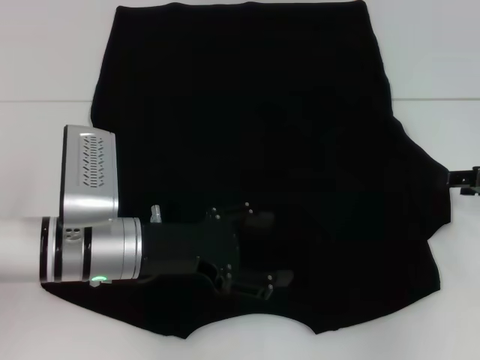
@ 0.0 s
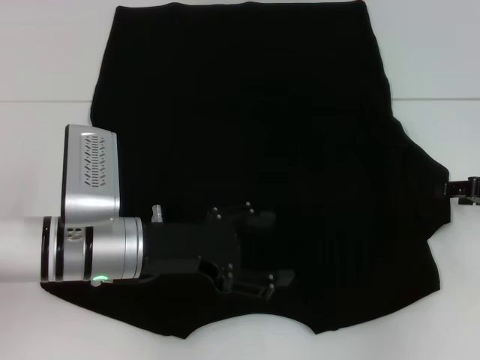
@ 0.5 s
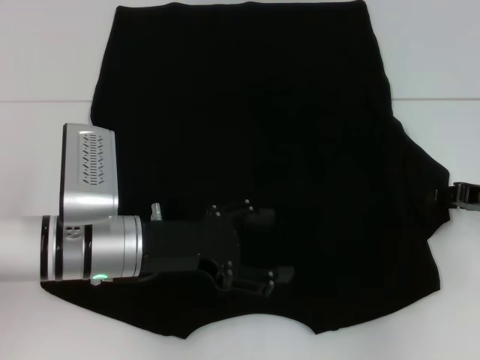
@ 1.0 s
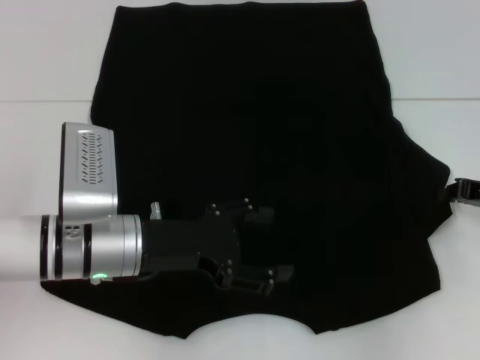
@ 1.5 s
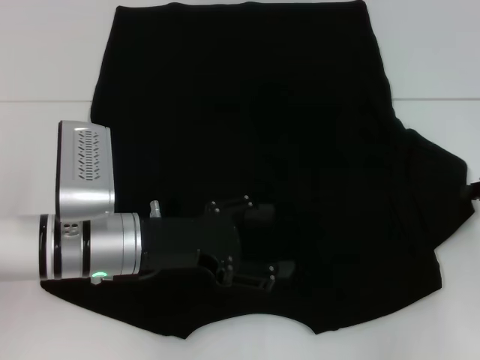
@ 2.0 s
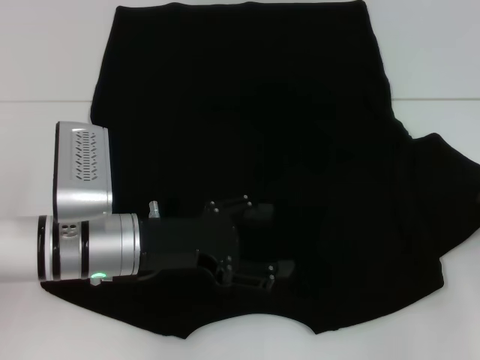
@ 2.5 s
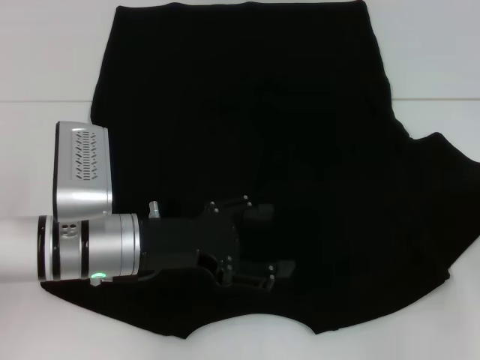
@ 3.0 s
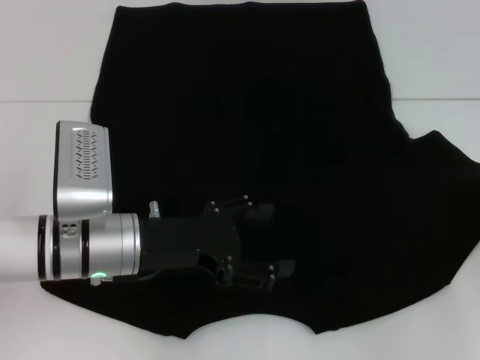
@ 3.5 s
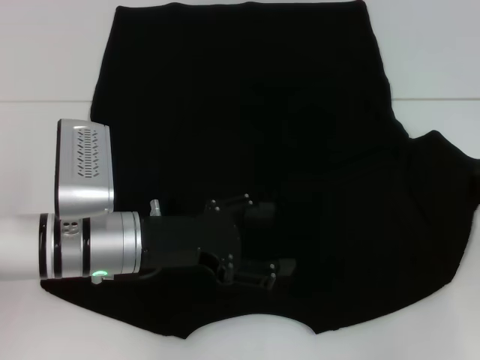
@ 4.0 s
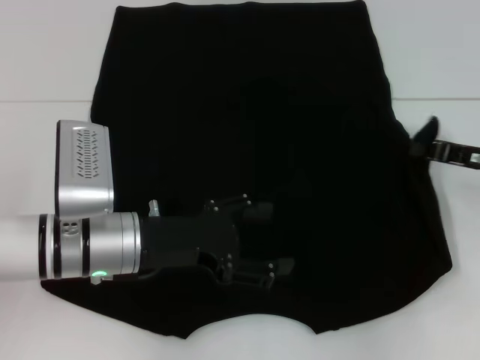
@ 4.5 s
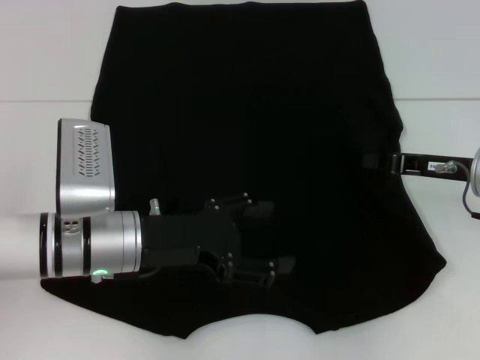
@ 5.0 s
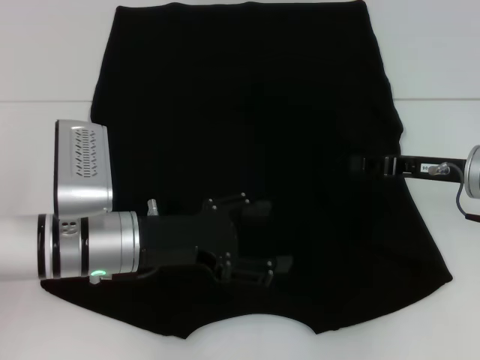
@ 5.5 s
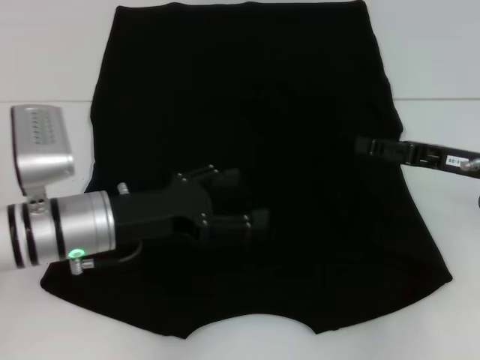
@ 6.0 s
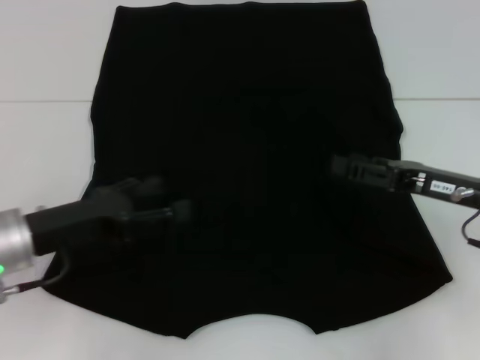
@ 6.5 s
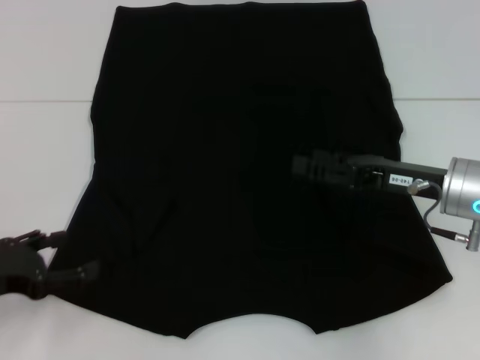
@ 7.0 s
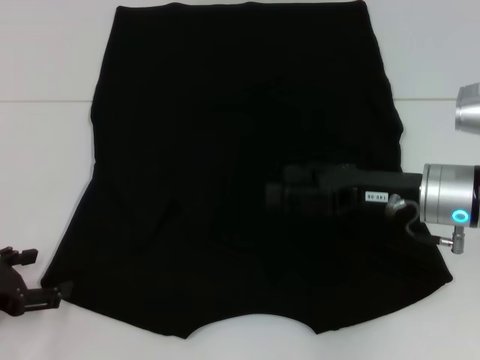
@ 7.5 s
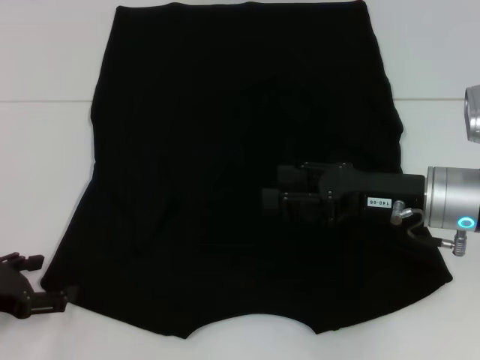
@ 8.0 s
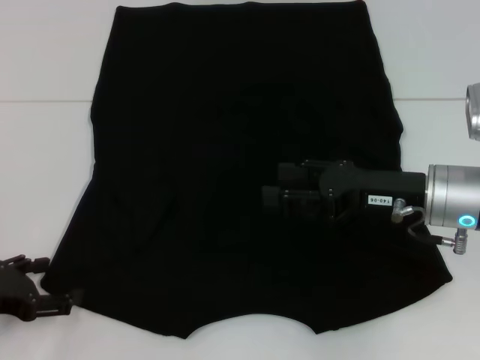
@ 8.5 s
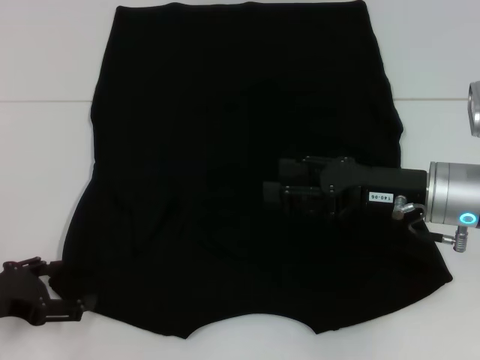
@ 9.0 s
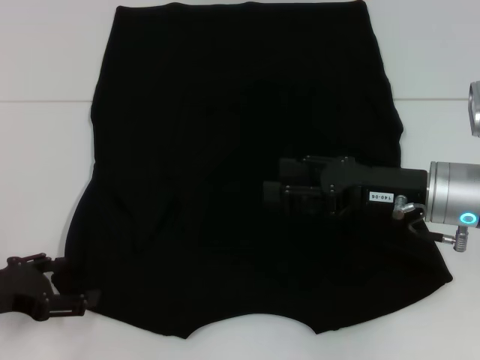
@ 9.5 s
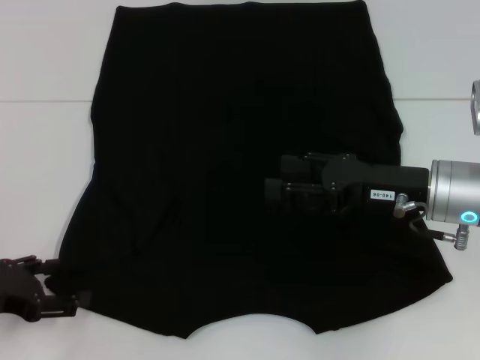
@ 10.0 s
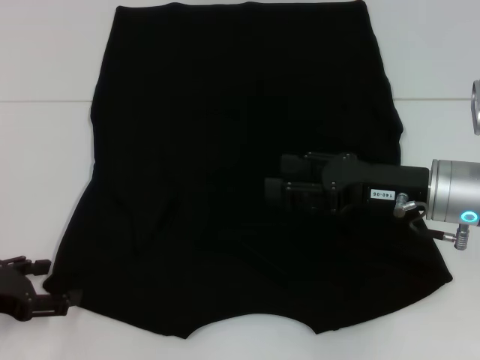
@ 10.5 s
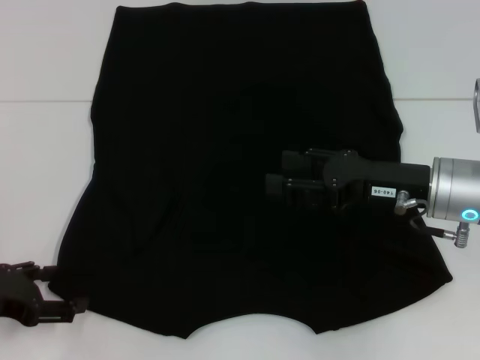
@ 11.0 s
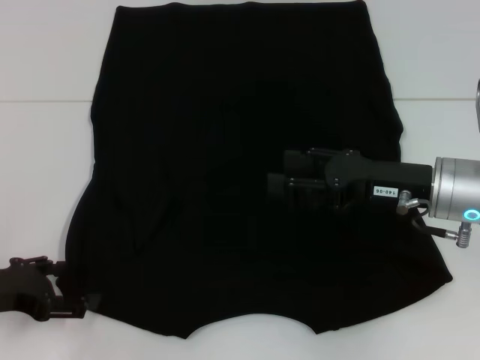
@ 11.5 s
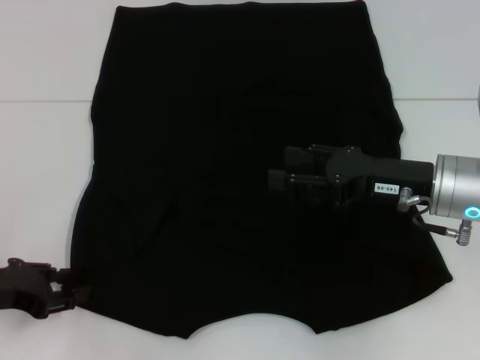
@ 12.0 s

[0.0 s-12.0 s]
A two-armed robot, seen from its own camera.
Step, 0.0 to 5.5 s: Fold the bottom right sleeve with your right hand.
0.0 to 2.0 s: The right gripper closes.
2.0 to 4.0 s: There are only small adjustments of the grippers.
4.0 to 6.0 s: The right gripper travels to the left by some 10 cm, and opens its fingers.
6.0 to 8.0 s: The left gripper goes some 15 cm to the left and backward. The right gripper shifts about 10 cm to the left.
8.0 to 12.0 s: The grippers move only a little.

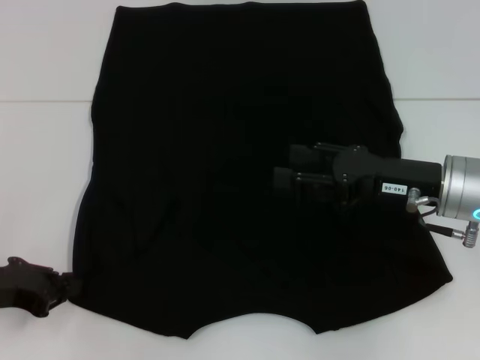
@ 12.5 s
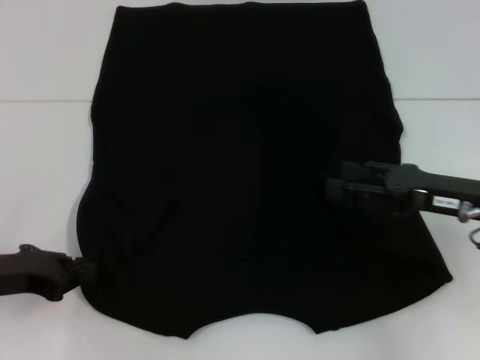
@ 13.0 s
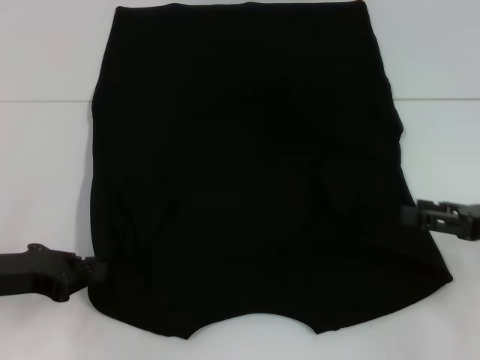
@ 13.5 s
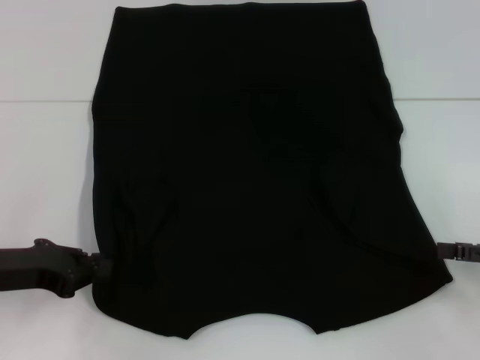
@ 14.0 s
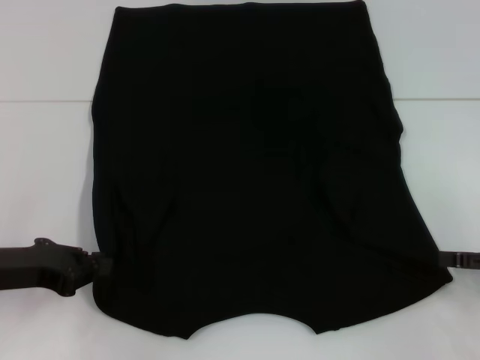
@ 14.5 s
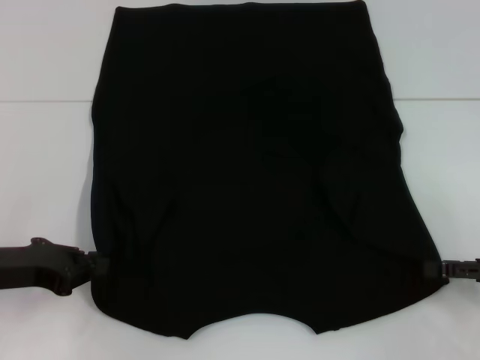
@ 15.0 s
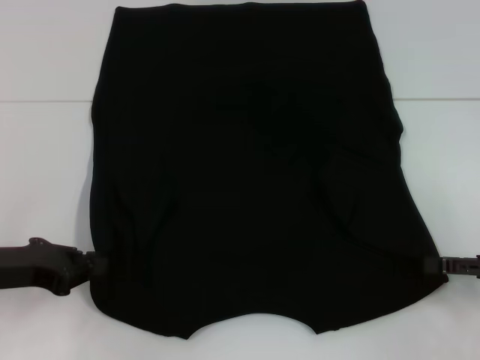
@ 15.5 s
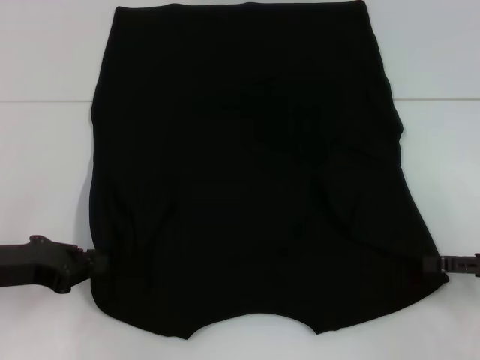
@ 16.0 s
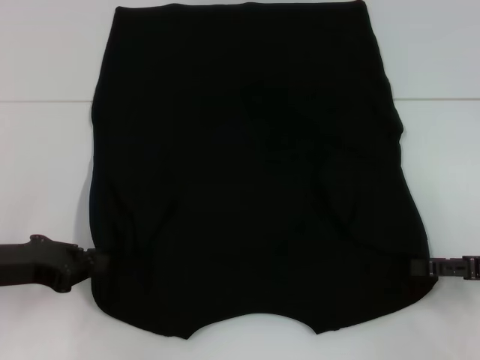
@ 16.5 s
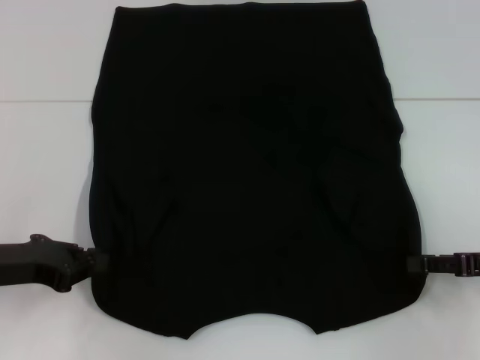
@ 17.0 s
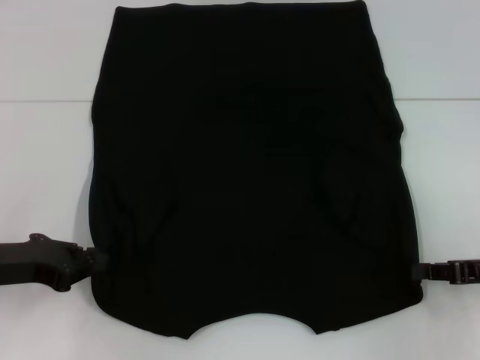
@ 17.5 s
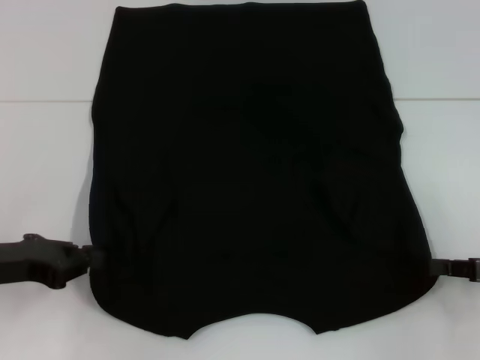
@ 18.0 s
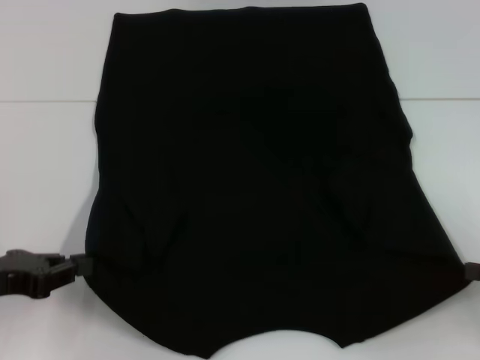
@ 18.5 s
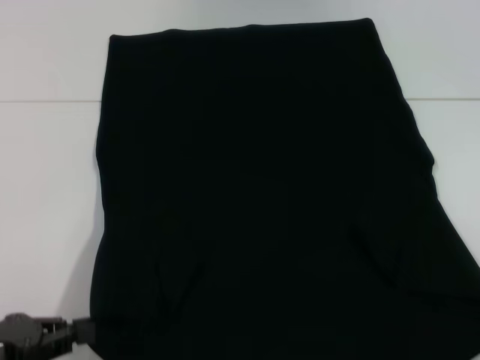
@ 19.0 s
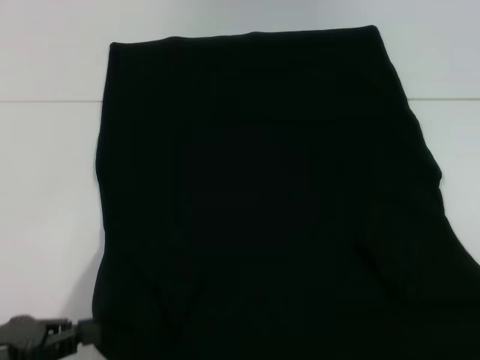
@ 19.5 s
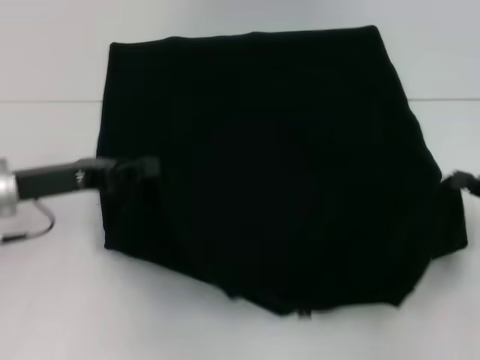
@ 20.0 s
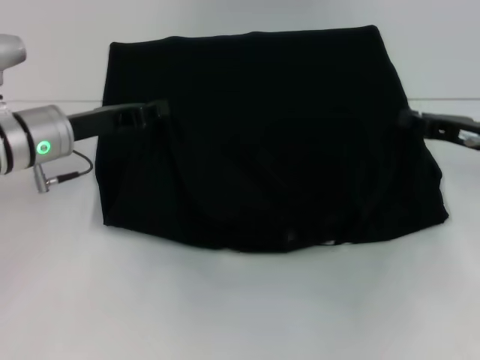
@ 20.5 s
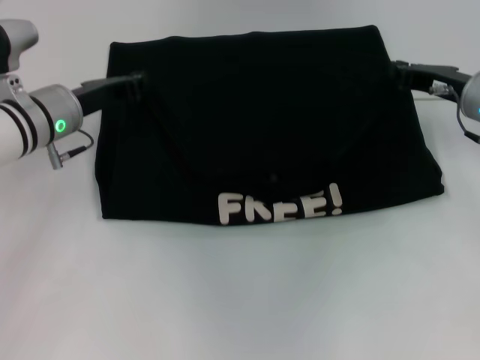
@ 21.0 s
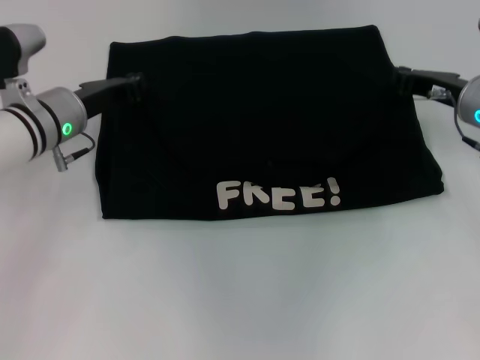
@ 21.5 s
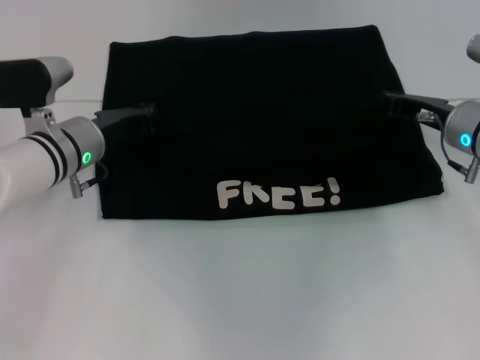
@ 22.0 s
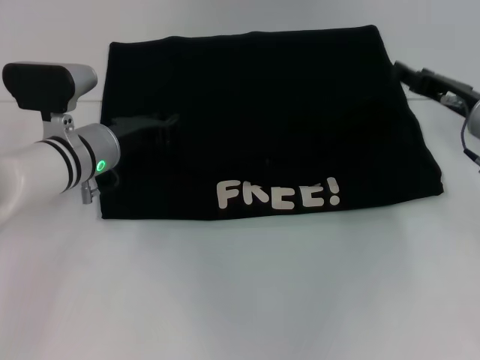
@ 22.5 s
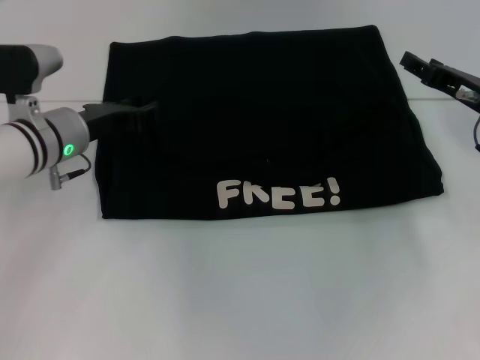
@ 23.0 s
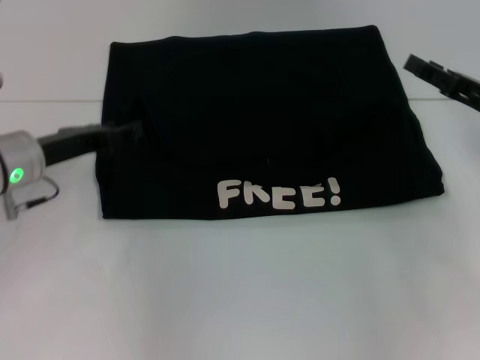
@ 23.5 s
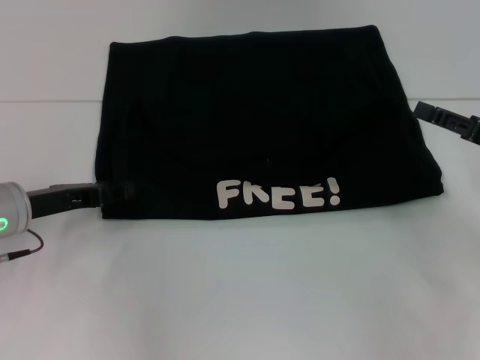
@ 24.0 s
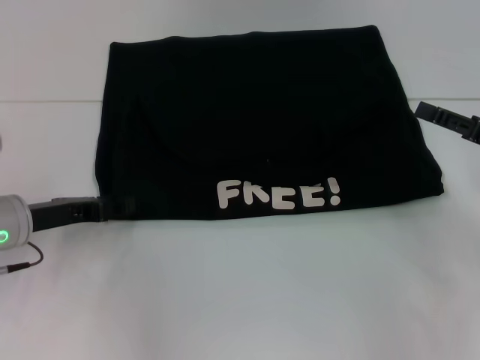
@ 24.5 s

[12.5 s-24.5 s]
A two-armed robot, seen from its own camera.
Step, 13.0 to 17.5 s: Grab the bottom right corner with your right hand.
Step, 18.0 to 22.0 s: Fold the clothes with your left hand.
Step, 18.0 to 22.0 s: Fold the clothes with your right hand.
12.5 to 14.5 s: The right gripper shifts roughly 15 cm to the right.
14.5 to 16.5 s: The grippers move only a little.
16.5 to 18.5 s: The right gripper ends up about 5 cm from where it was, and closes.
18.5 to 20.5 s: The right gripper goes some 15 cm forward and to the left; the left gripper is displaced forward and to the right by approximately 15 cm.
20.5 to 22.5 s: The left gripper shifts by approximately 5 cm.
22.5 to 24.5 s: The left gripper heads to the left and backward, covering some 10 cm, and opens. The right gripper moves backward and to the right, approximately 10 cm.

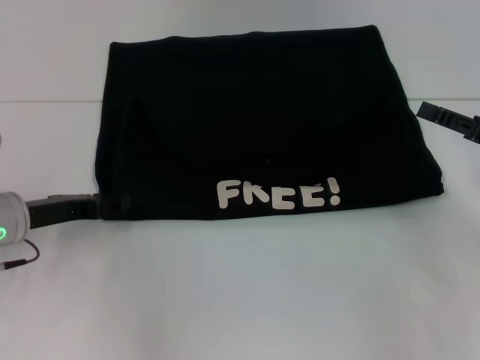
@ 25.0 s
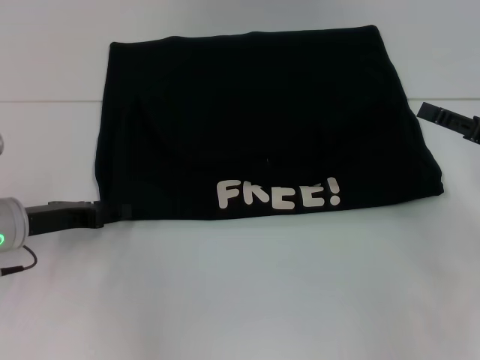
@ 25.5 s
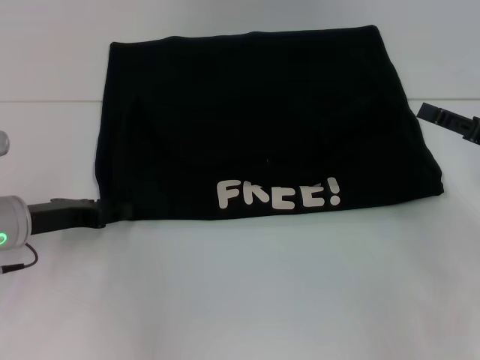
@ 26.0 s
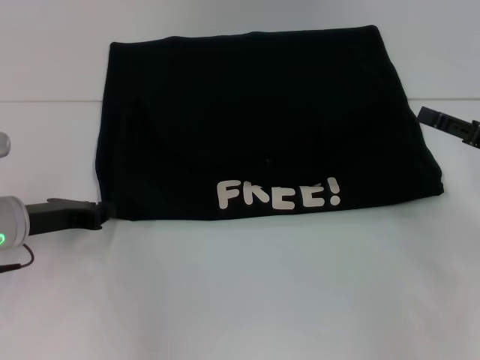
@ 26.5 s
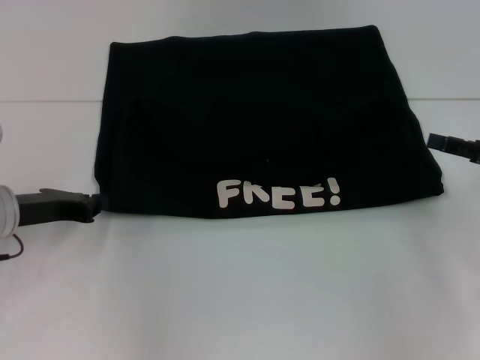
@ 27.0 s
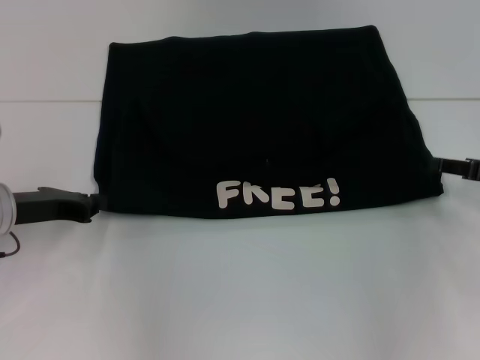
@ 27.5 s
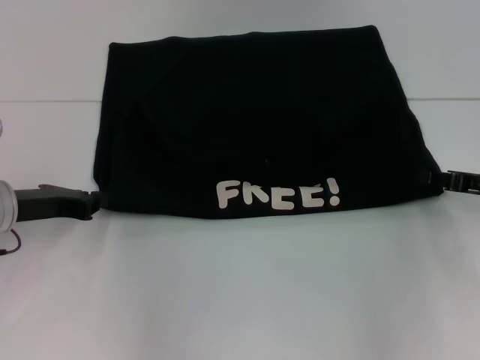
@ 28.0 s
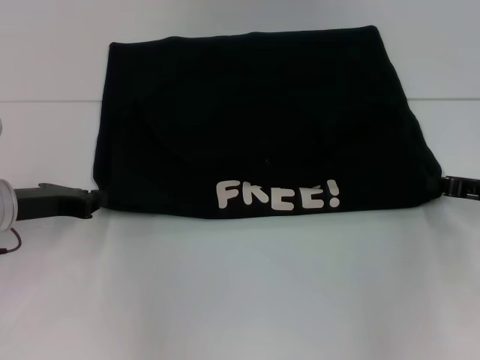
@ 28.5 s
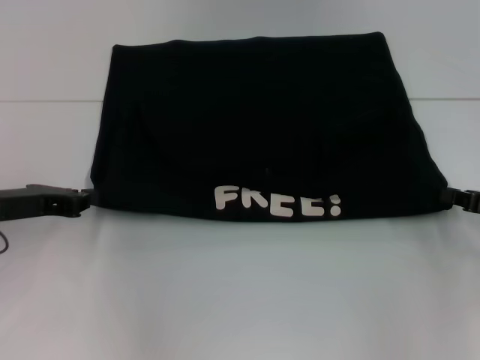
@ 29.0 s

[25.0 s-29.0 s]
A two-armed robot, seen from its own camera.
25.0 to 27.0 s: The left gripper closes up.
27.0 to 29.0 s: The right gripper closes up.
